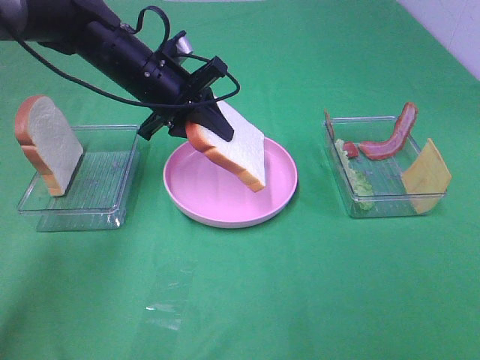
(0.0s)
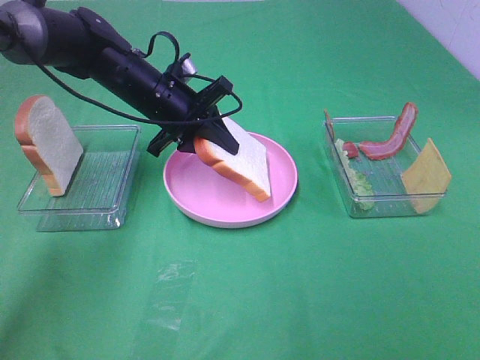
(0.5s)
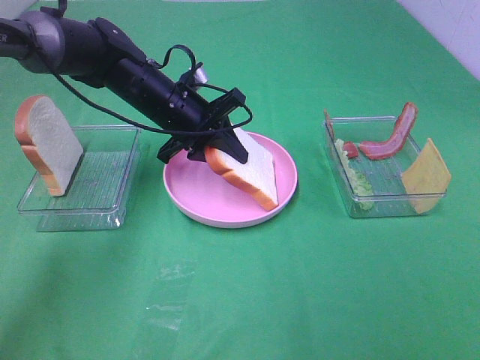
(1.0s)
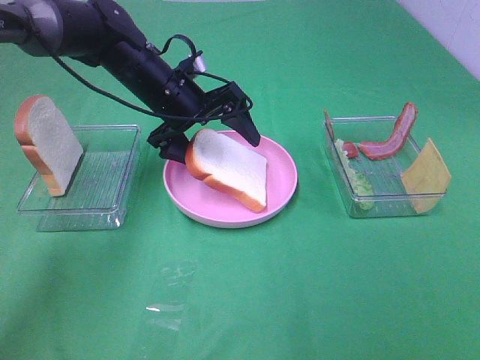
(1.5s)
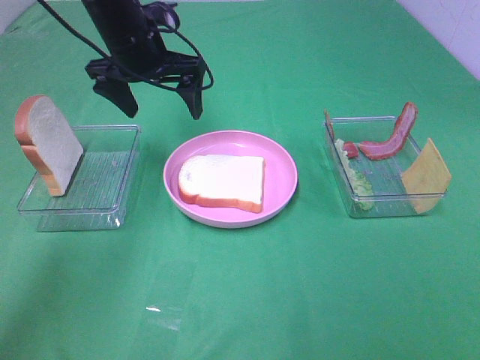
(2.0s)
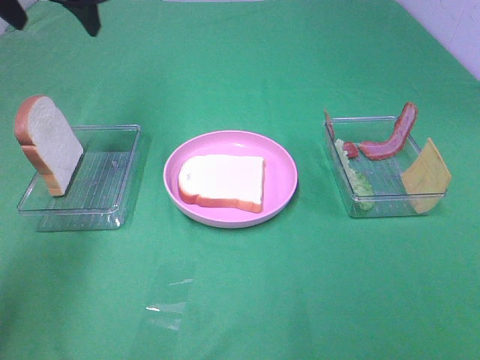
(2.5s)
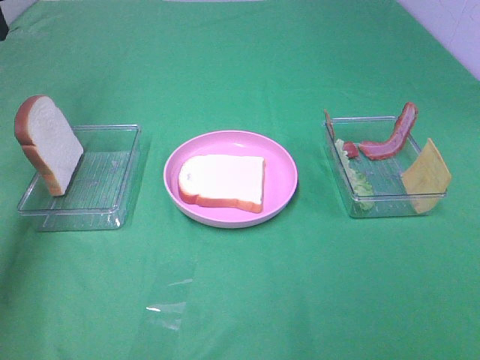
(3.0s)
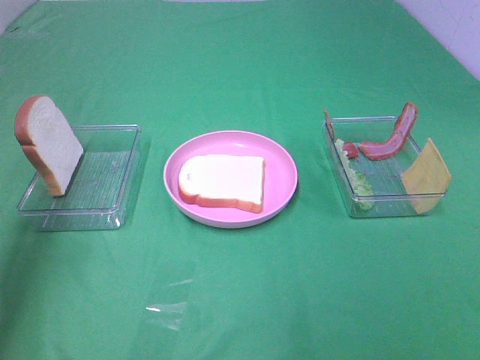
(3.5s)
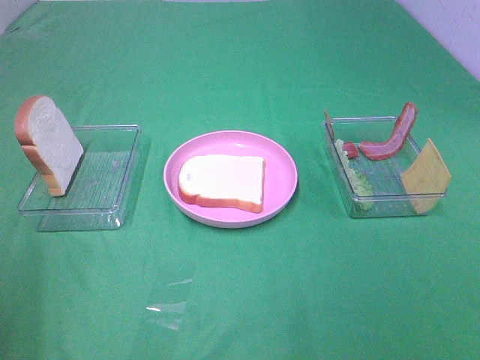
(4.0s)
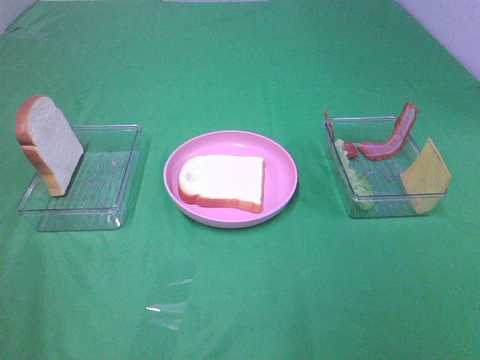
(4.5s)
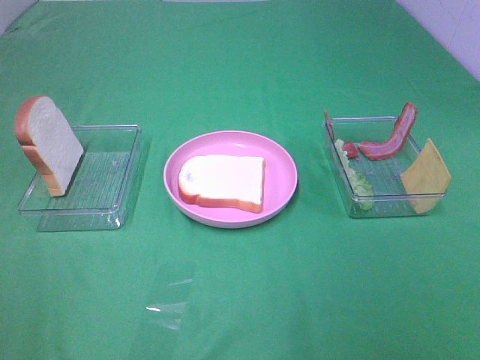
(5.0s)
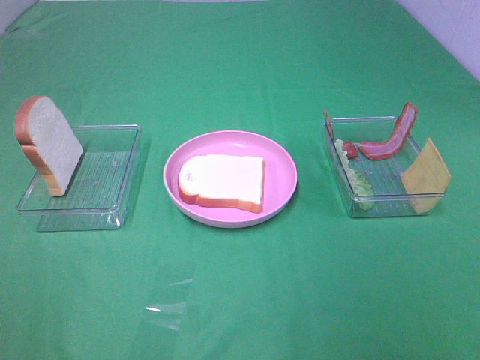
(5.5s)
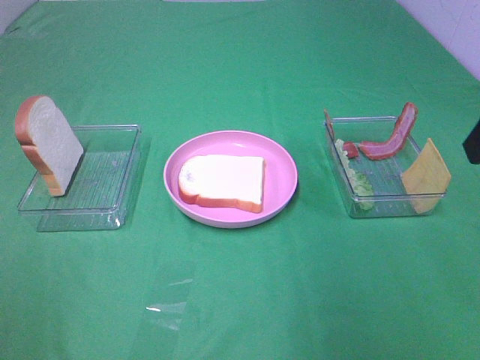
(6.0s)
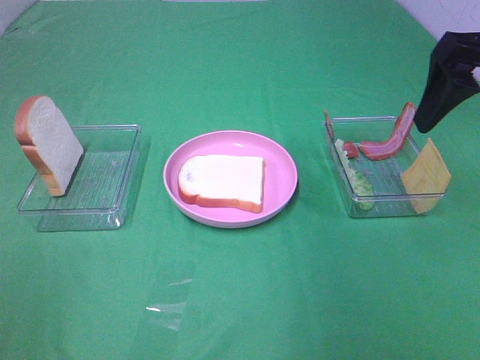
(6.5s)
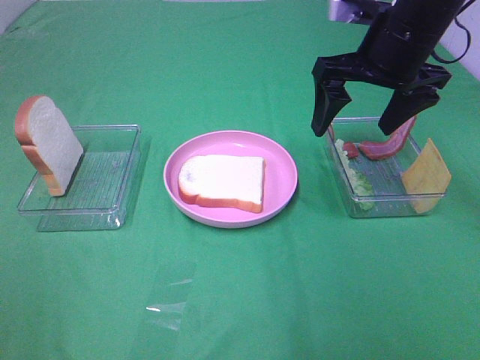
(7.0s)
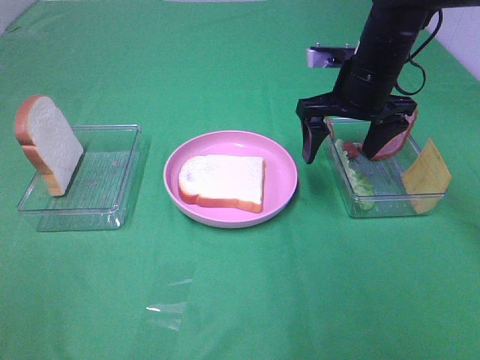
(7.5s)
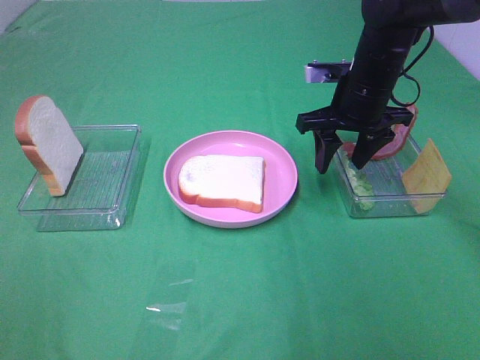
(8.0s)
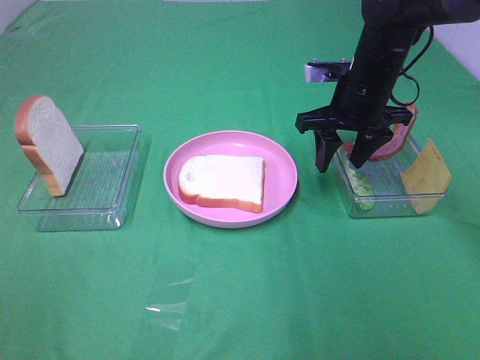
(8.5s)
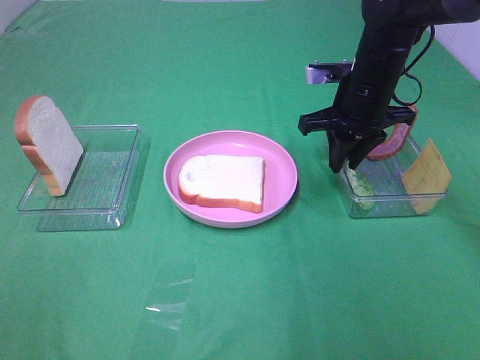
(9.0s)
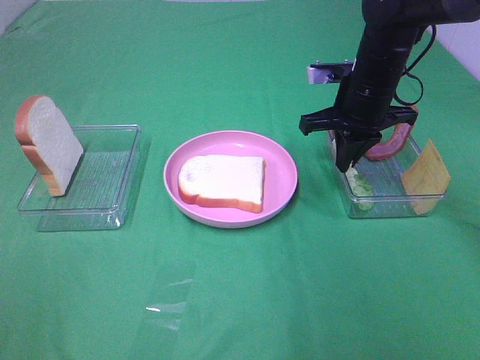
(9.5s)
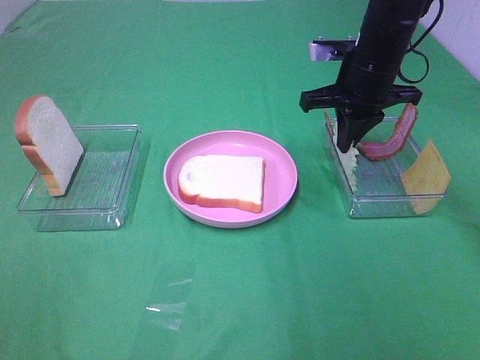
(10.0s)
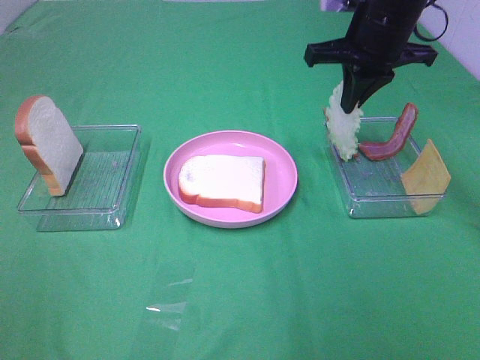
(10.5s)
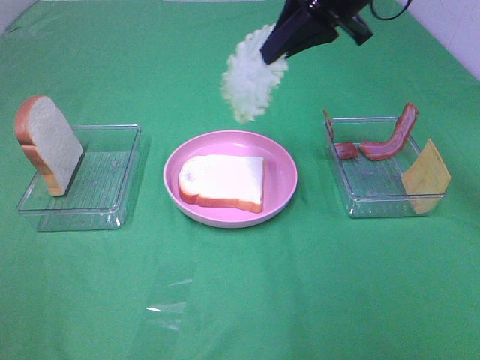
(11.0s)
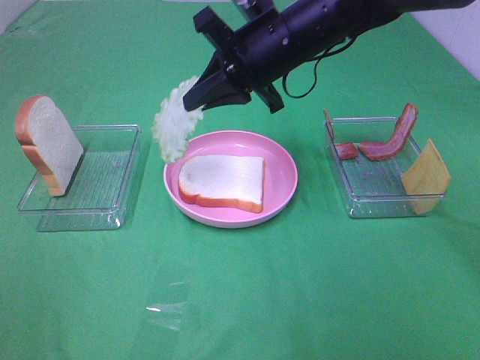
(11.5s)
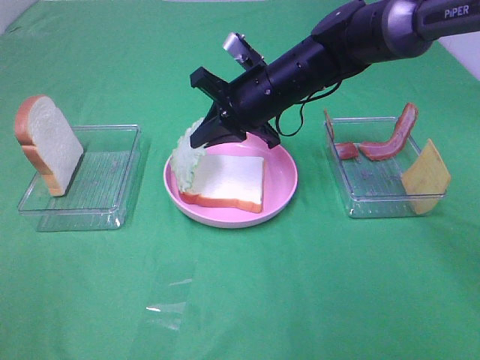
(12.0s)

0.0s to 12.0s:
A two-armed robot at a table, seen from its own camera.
Task of the whole recording: Make sandwiches.
Step, 2.0s to 9.5s: Right hand:grab the lettuce slice.
0.0s to 2.0s: The left gripper travels upward by about 5 cm, and opens.
2.0s to 4.0s: The left gripper heads backward and to the left, covering some 40 cm.
6.0s to 8.0s: The right gripper goes some 25 cm forward, downward and to the left, and closes its fingers.
8.0s to 10.0s: The right gripper closes up.
10.0s to 12.0s: The right gripper is displaced to the left by about 10 cm, and reaches approximately 10 cm upward, then returns.

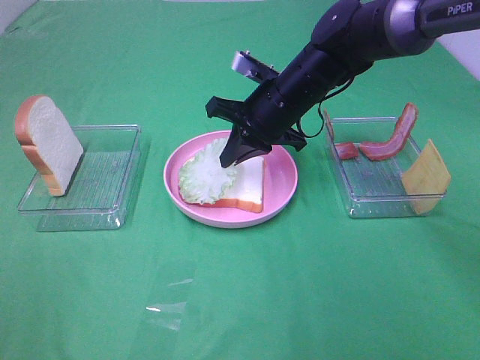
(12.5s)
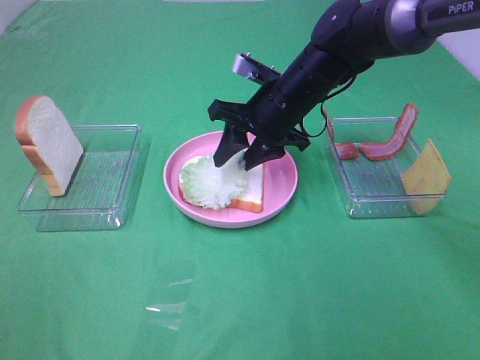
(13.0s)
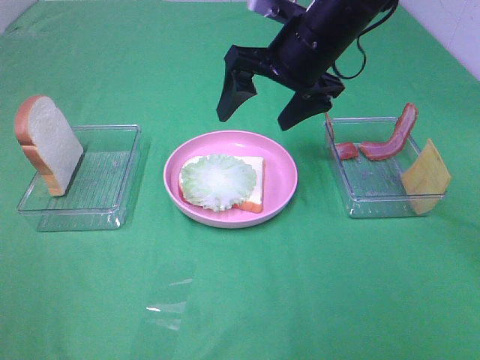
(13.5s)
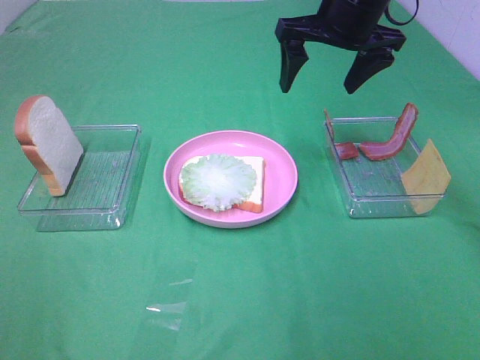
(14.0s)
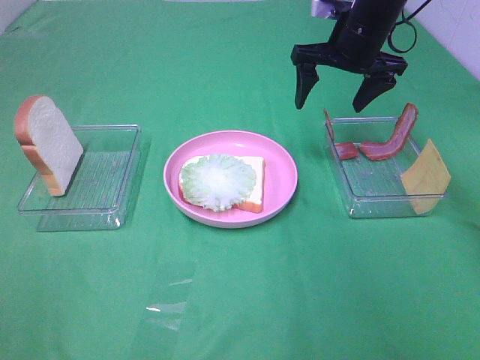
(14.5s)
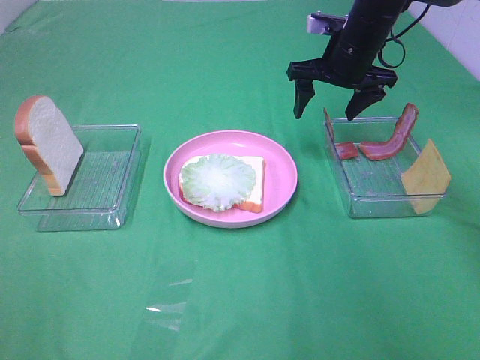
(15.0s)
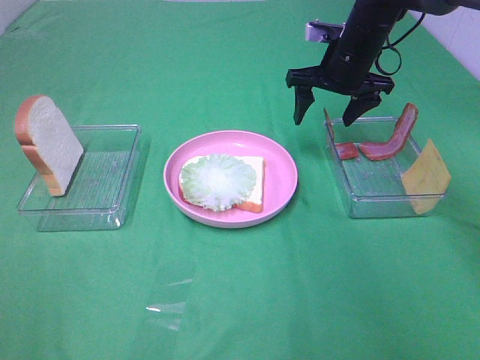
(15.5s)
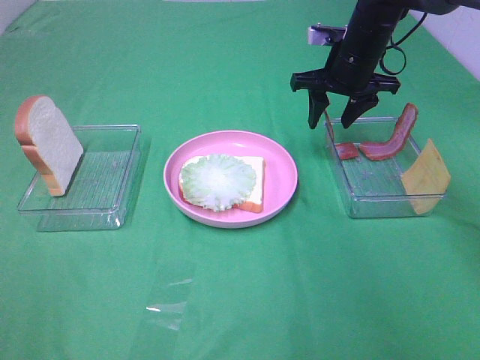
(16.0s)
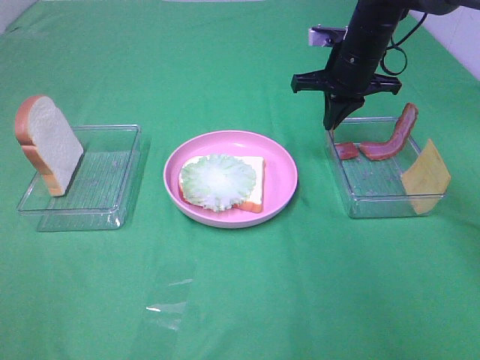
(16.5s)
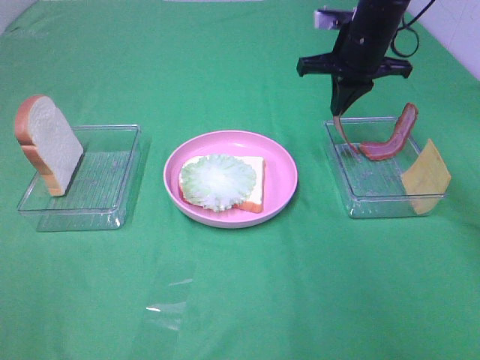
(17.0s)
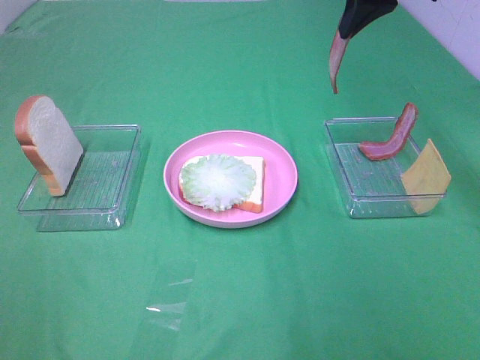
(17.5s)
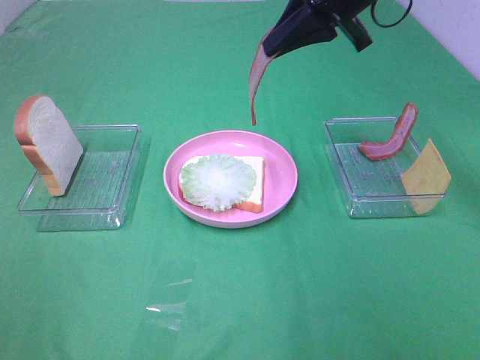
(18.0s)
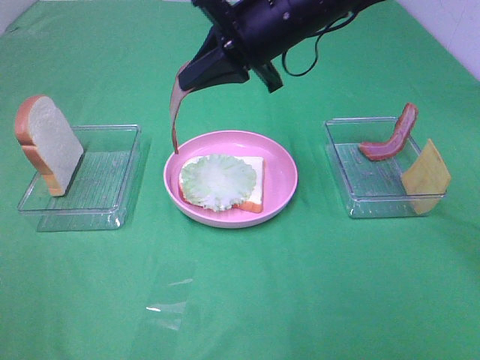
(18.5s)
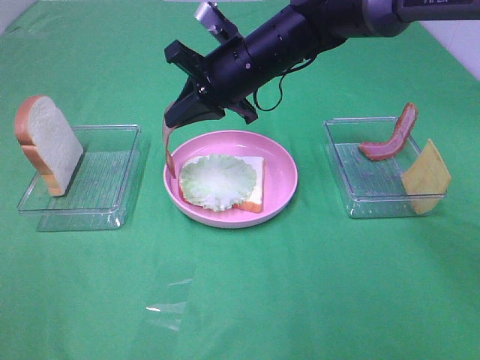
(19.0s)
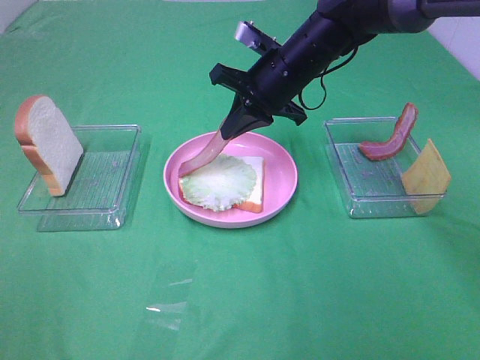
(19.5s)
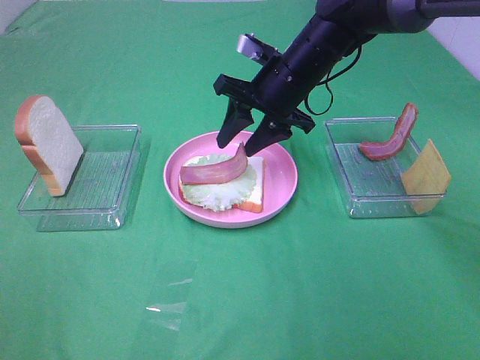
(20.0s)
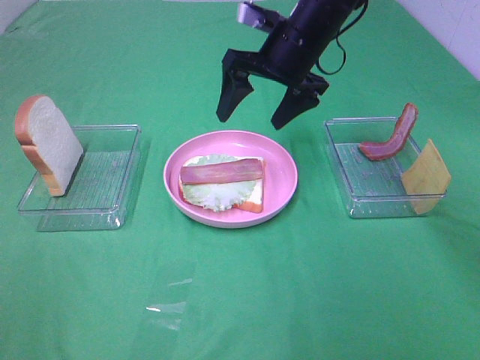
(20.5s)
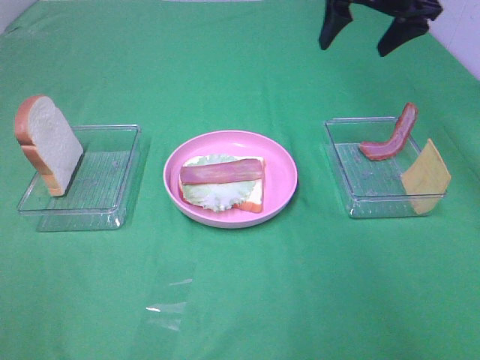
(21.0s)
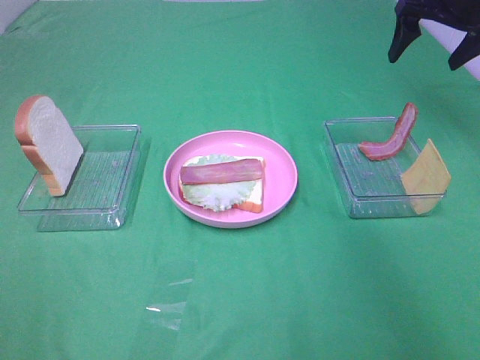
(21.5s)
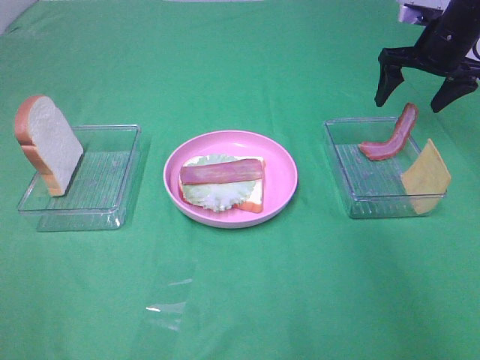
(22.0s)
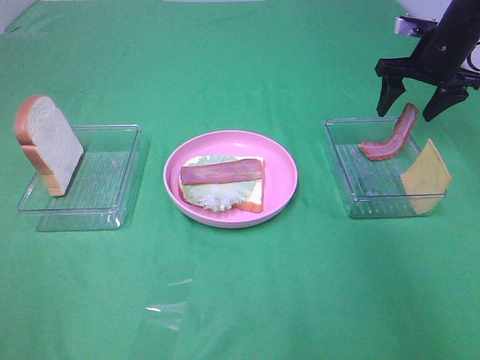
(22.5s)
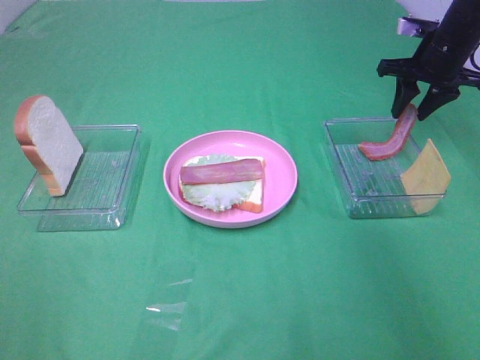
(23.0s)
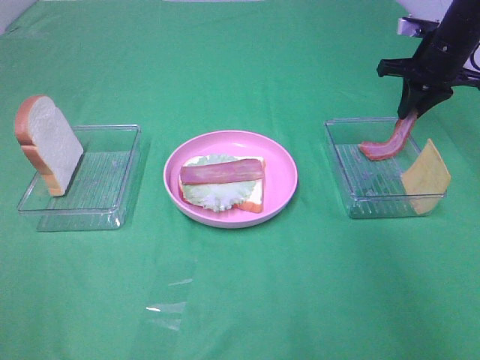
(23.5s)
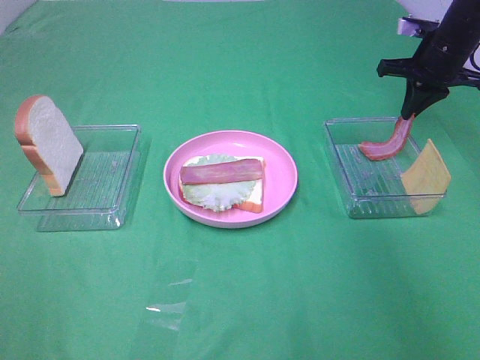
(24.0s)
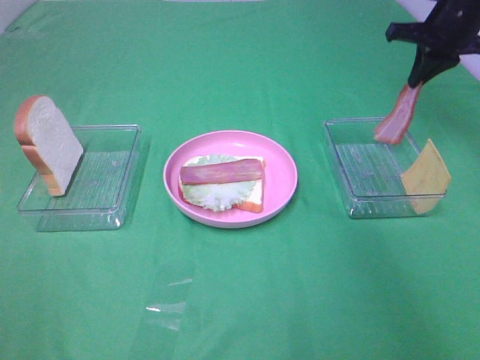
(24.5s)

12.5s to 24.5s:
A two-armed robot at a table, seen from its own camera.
Task of the whole recording: Make sandwiches.
Step, 13.5s to 16.5s: Right hand:grab the bacon.
Step, 17.0s to 20.0s: Right hand:place bacon on lettuce slice.
Step, 20.5s to 24.0s: Right hand:grab the bacon.
12.5s to 14.5s: The right gripper shifts about 15 cm to the right, upward and forward, and opens.
14.5s to 16.5s: The right gripper closes its fingers.
16.5s to 18.5s: The right gripper goes approximately 15 cm to the left, backward and upward.
18.5s to 20.5s: The right gripper is displaced forward by approximately 5 cm, travels downward and back again, approximately 10 cm each way, and opens.
20.5s to 22.5s: The right gripper is displaced to the right by some 20 cm.
22.5s to 24.5s: The right gripper travels upward by some 5 cm, and closes.

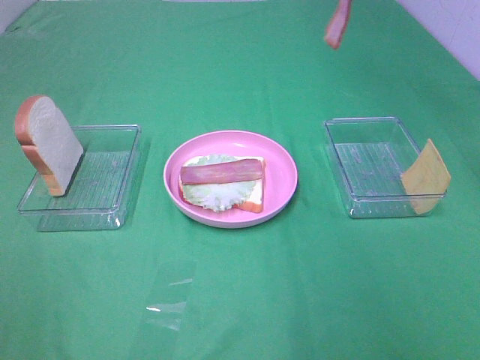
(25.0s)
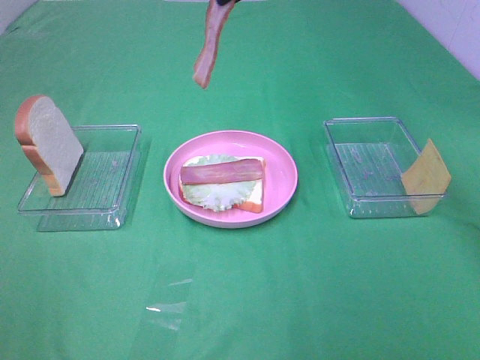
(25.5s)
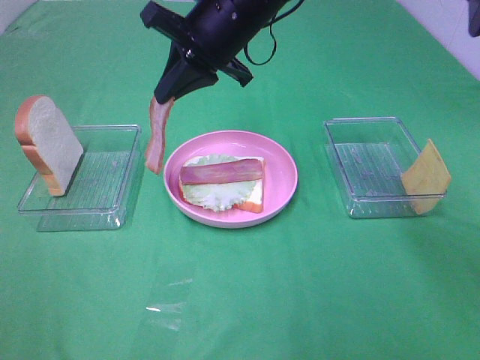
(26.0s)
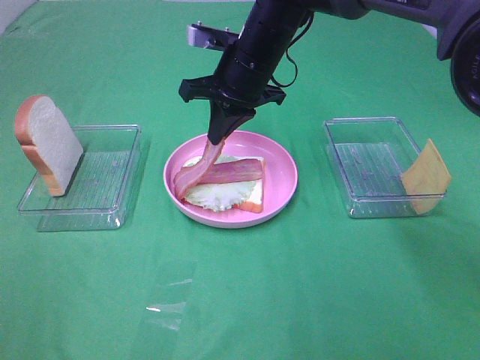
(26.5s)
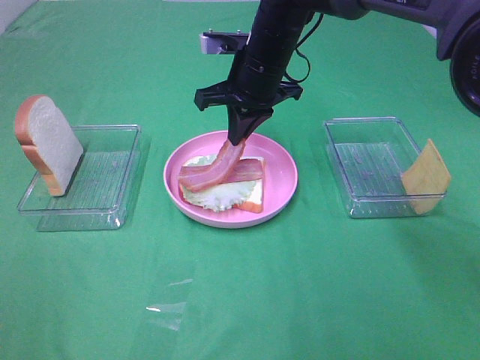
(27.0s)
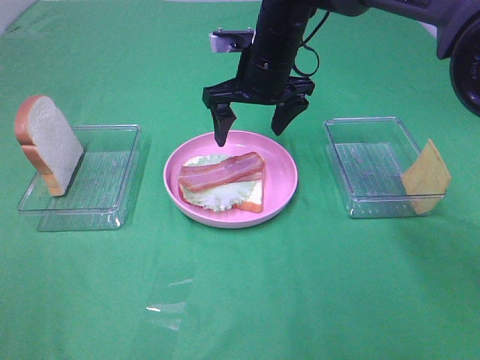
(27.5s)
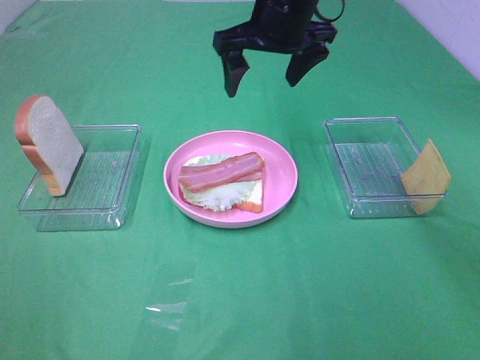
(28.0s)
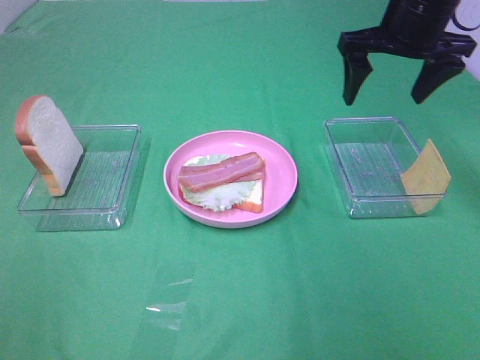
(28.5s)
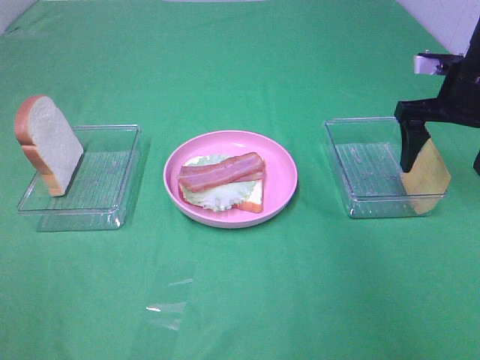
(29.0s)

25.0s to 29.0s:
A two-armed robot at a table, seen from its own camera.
Task of the whole recording: Make sandwiches.
Step, 25.0s to 27.0s: Right hand:place bacon on bacon.
25.0s to 27.0s: The right gripper travels downward and to the left by roughly 25 cm.
27.0s to 29.0s: The right gripper goes roughly 25 cm to the right, and opens.
